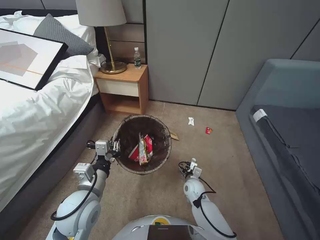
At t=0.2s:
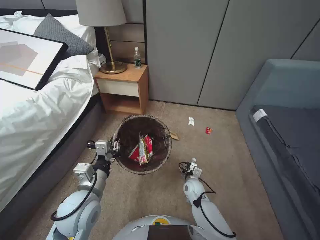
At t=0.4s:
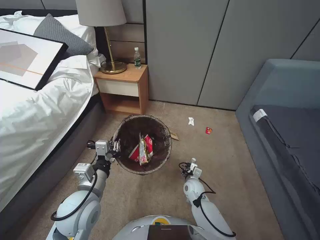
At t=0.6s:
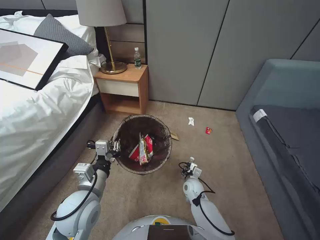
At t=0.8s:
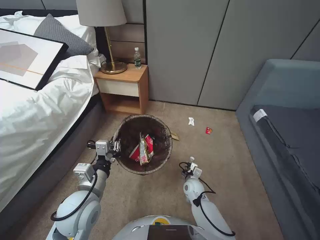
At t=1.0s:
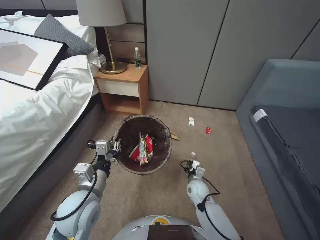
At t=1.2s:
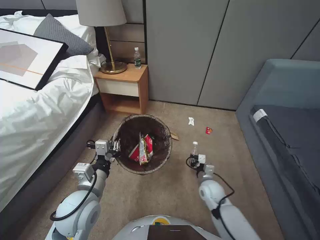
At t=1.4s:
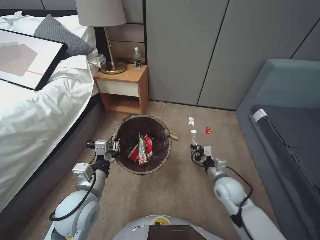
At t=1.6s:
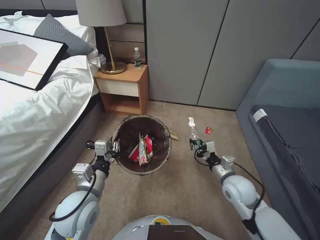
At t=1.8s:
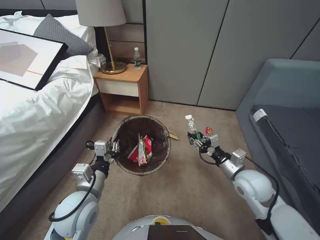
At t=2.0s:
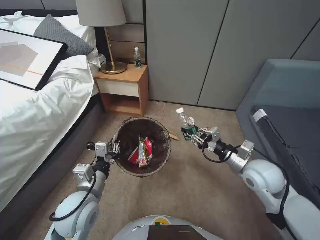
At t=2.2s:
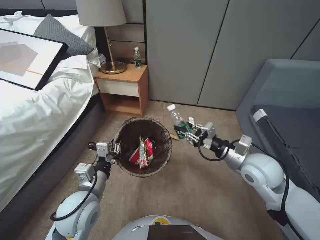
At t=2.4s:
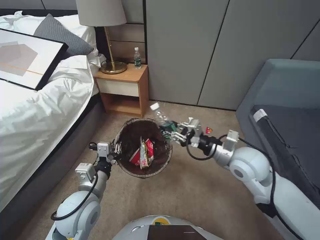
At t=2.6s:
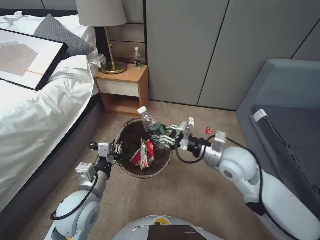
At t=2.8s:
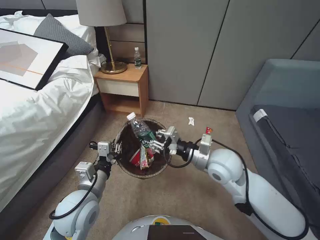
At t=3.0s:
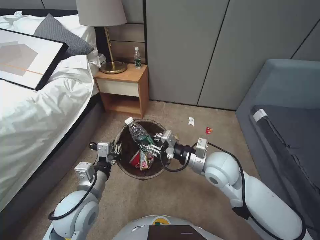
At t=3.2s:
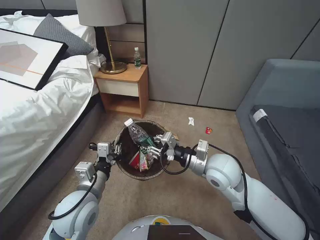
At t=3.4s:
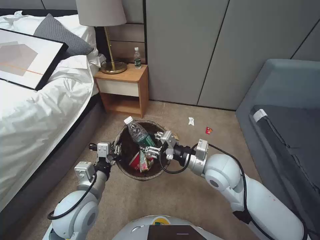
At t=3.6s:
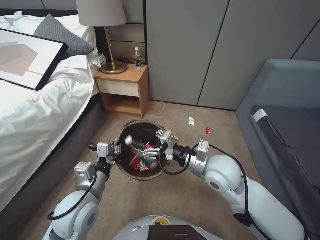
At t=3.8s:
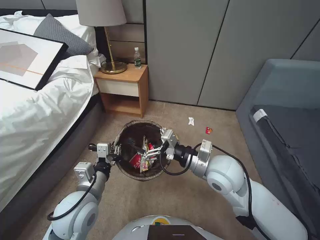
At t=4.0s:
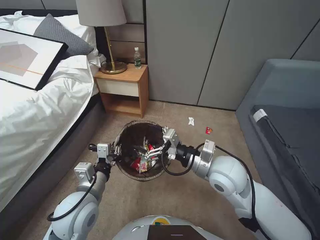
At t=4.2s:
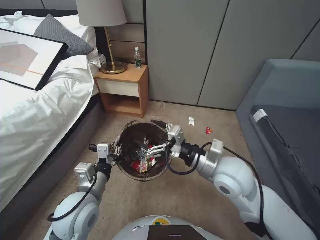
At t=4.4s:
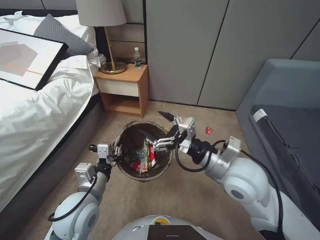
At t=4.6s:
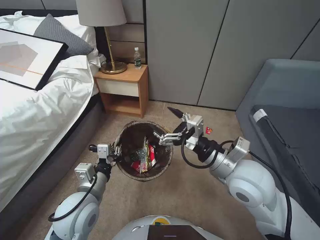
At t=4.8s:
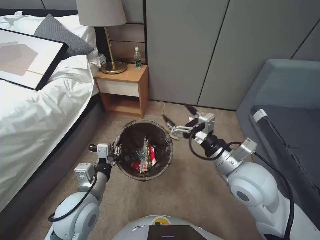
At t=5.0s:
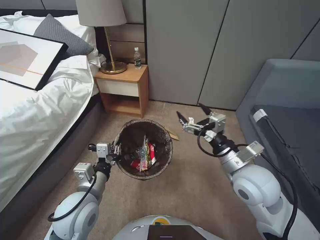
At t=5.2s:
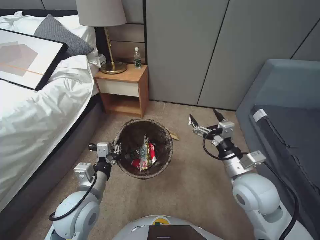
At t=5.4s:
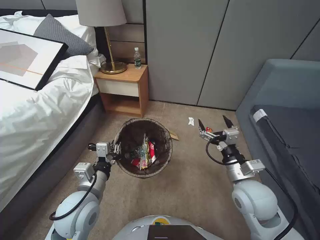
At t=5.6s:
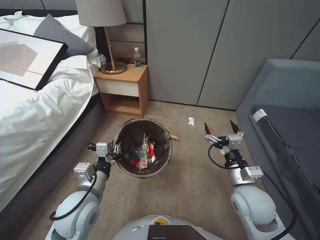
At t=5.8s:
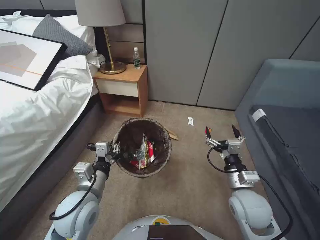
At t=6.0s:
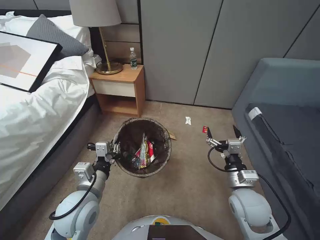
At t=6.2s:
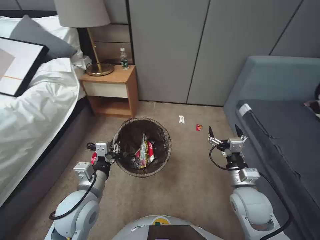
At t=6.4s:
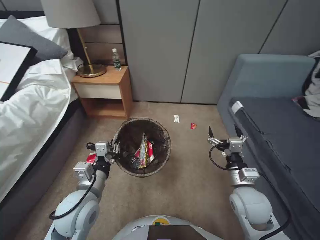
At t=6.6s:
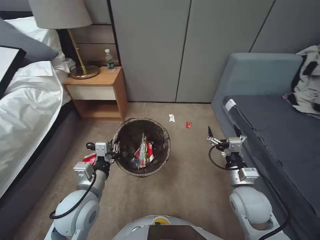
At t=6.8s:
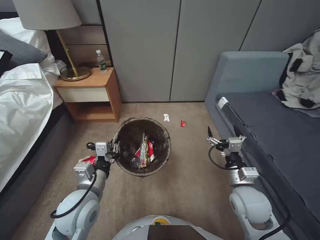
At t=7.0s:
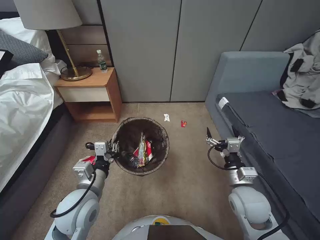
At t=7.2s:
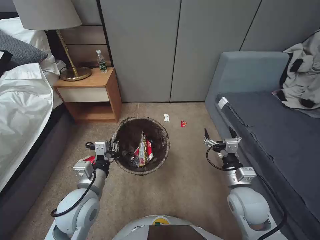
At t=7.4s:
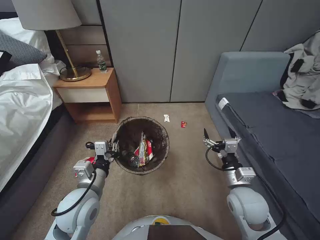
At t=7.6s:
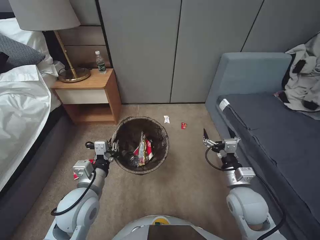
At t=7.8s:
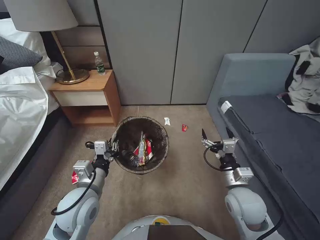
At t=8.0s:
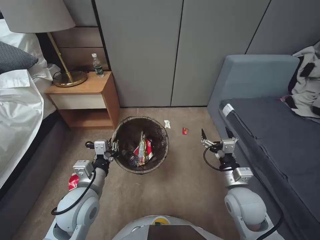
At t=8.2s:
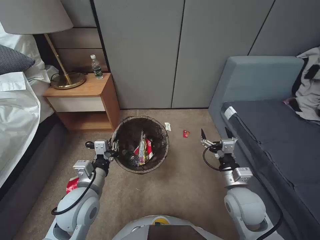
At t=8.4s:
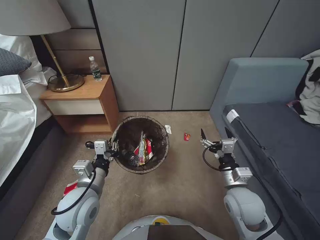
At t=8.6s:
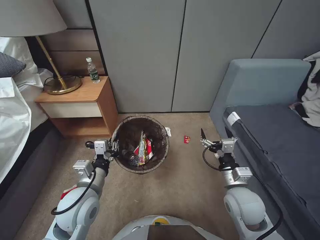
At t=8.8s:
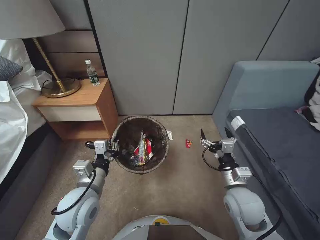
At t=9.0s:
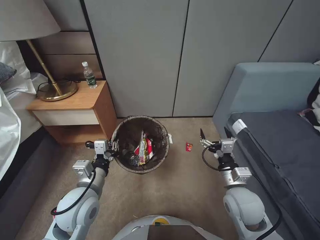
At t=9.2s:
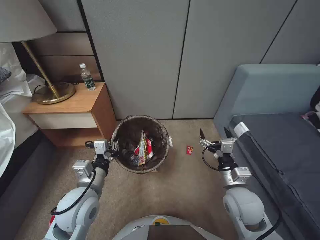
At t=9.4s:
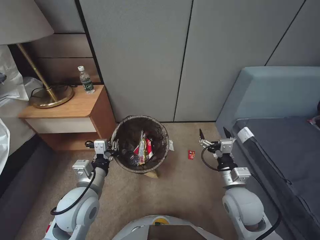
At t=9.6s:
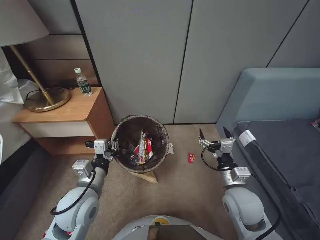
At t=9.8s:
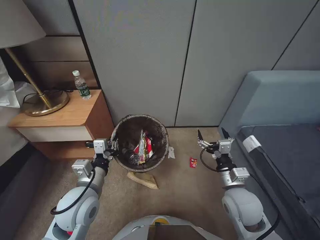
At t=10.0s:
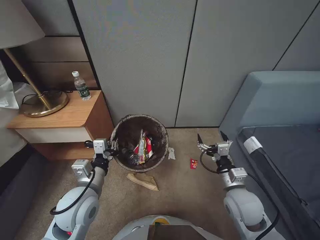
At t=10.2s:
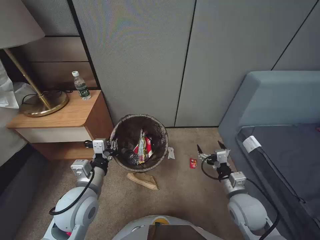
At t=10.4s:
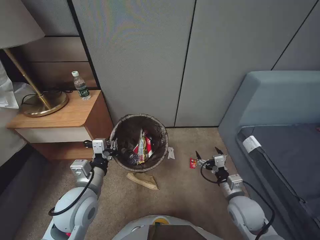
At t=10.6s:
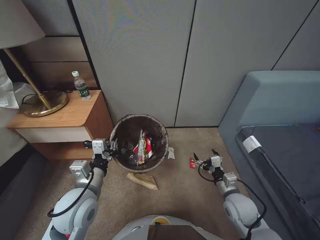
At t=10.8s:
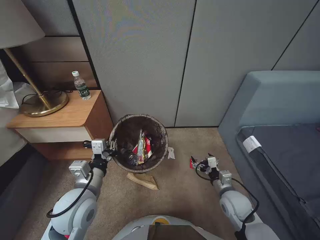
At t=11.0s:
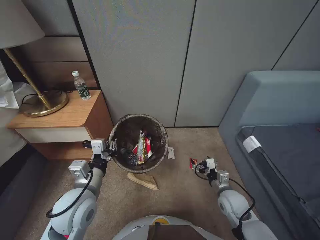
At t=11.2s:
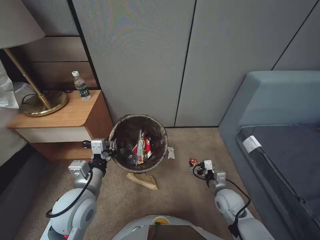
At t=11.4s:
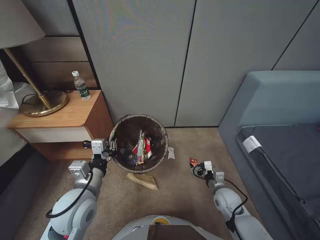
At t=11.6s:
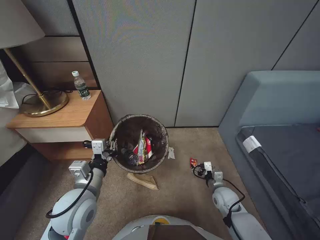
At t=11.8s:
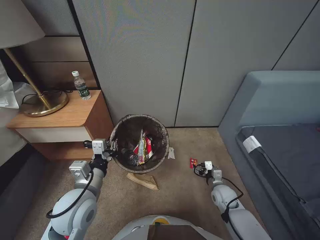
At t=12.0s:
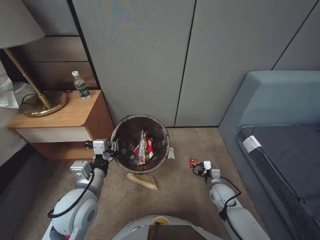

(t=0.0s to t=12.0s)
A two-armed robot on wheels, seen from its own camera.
Task of the whole recording: Pick up the trash bin, then pick up the garbage from the floor and place it into the trash bin.
t=0.0s - t=1.6s: The right gripper is displaced upward and to the right by approximately 20 cm, and closes.
t=1.6s - t=3.0s: The right gripper shifts about 15 cm upward and to the left.
t=3.0s - t=4.4s: The right gripper heads upward, covering roughly 5 cm, and opens.
t=4.4s - t=6.0s: The right gripper heads downward and to the right, covering roughly 15 cm.
t=9.0s - t=10.4s: The right gripper heads downward, covering roughly 5 cm.
t=10.4s - t=12.0s: The right gripper shifts roughly 15 cm downward and forward.

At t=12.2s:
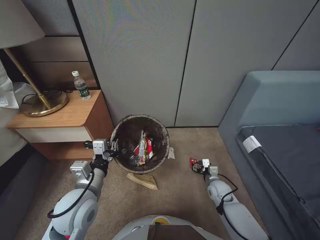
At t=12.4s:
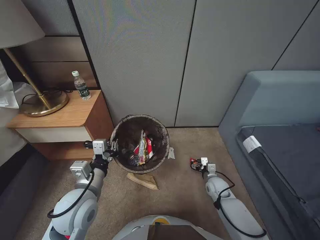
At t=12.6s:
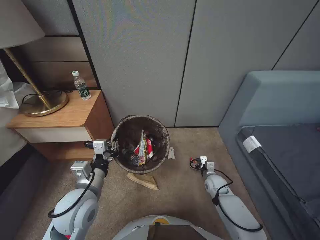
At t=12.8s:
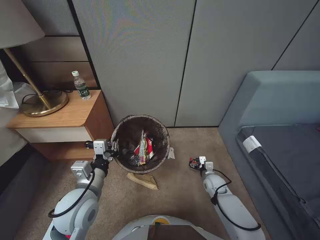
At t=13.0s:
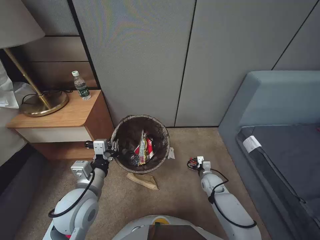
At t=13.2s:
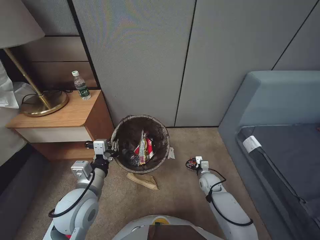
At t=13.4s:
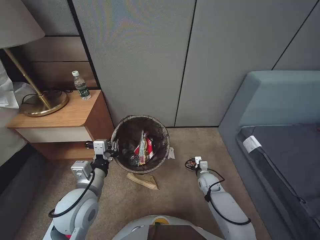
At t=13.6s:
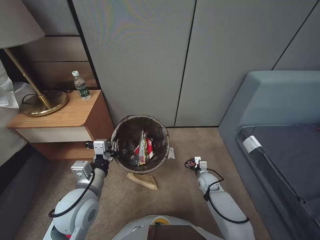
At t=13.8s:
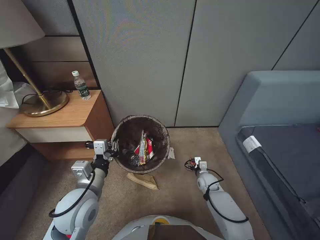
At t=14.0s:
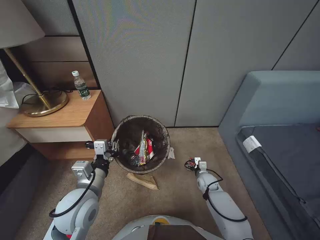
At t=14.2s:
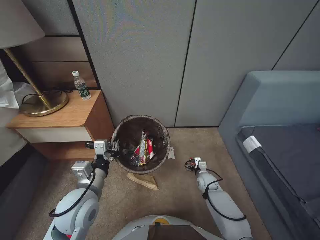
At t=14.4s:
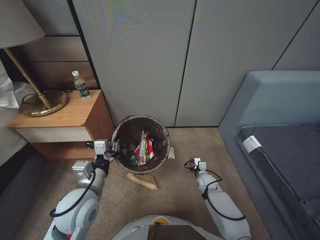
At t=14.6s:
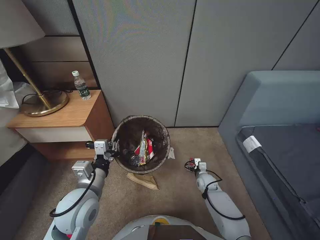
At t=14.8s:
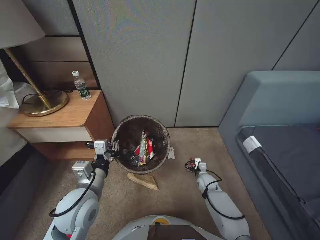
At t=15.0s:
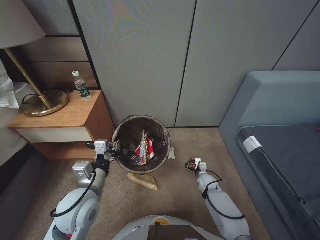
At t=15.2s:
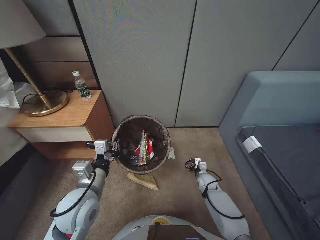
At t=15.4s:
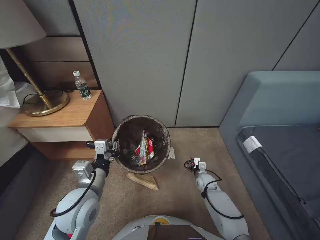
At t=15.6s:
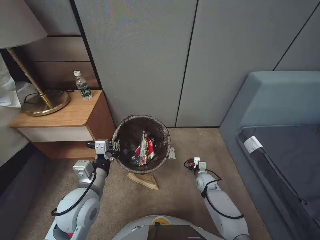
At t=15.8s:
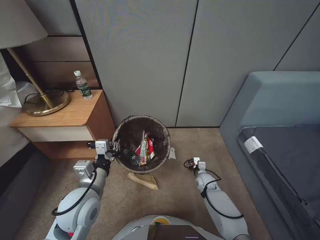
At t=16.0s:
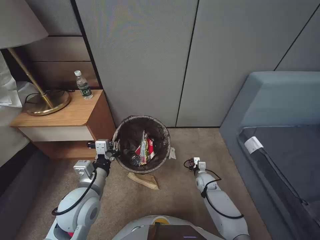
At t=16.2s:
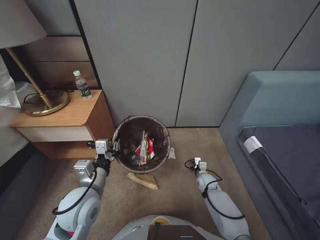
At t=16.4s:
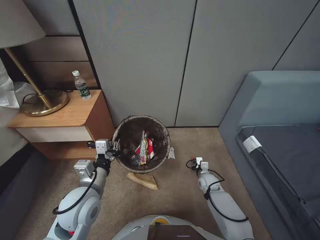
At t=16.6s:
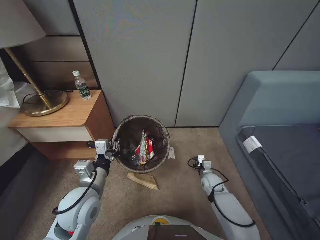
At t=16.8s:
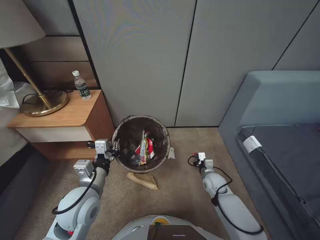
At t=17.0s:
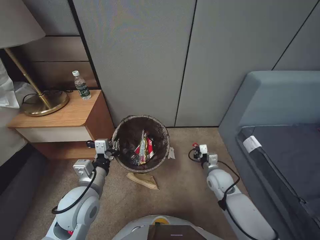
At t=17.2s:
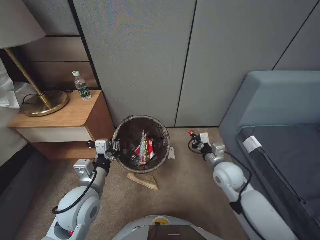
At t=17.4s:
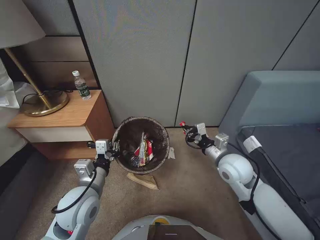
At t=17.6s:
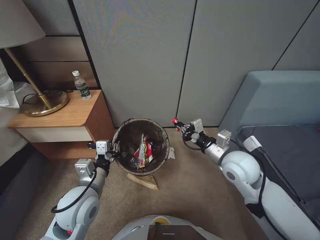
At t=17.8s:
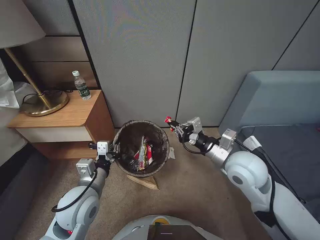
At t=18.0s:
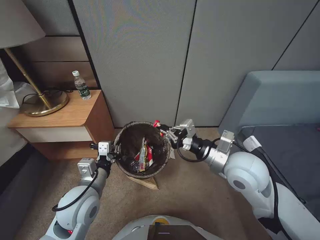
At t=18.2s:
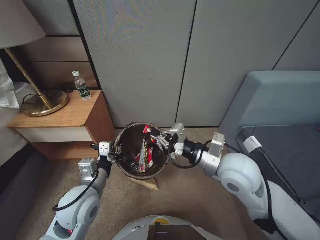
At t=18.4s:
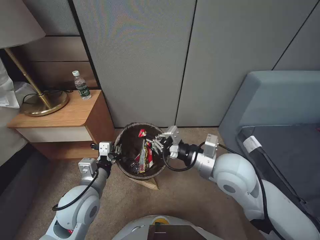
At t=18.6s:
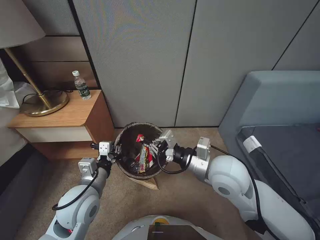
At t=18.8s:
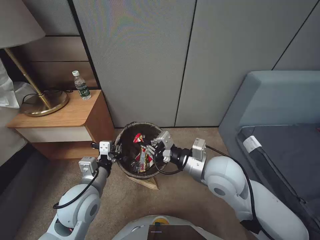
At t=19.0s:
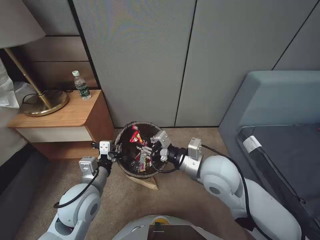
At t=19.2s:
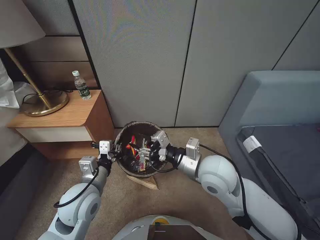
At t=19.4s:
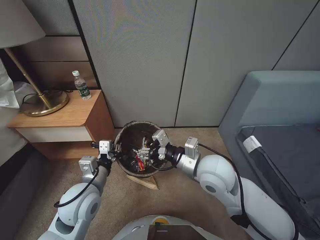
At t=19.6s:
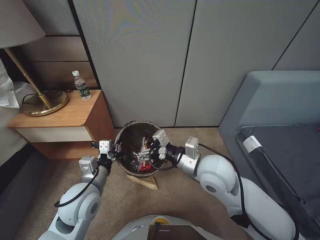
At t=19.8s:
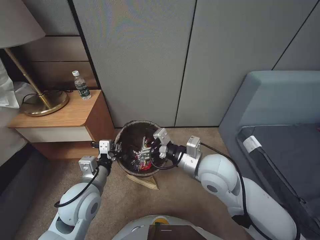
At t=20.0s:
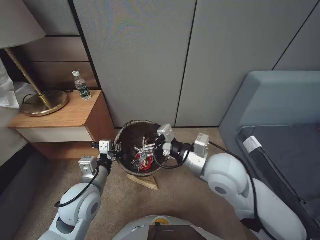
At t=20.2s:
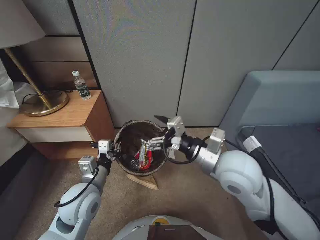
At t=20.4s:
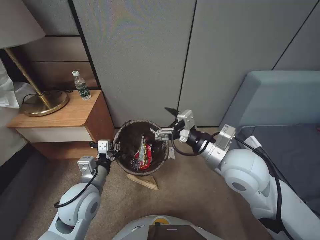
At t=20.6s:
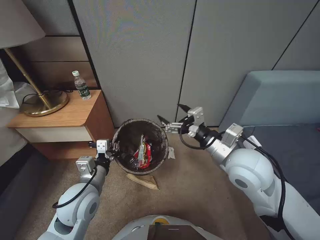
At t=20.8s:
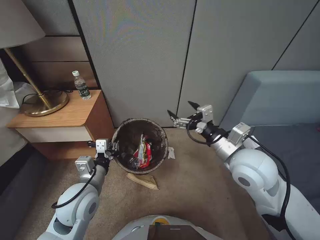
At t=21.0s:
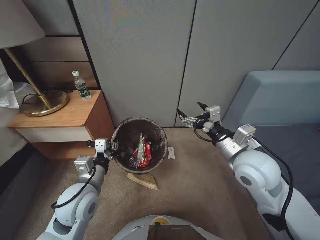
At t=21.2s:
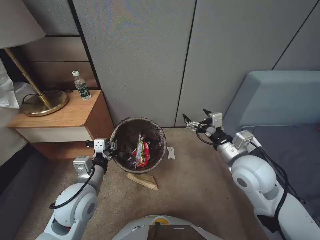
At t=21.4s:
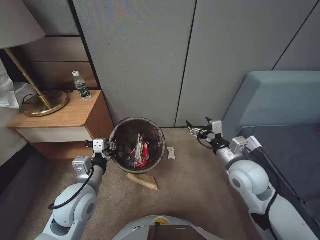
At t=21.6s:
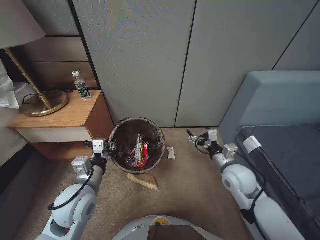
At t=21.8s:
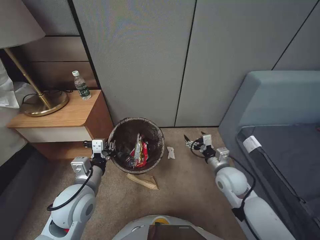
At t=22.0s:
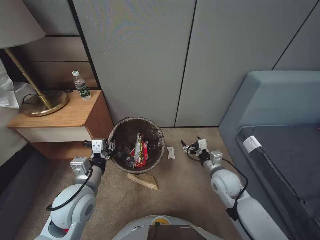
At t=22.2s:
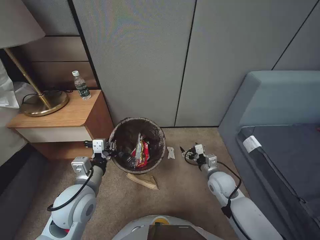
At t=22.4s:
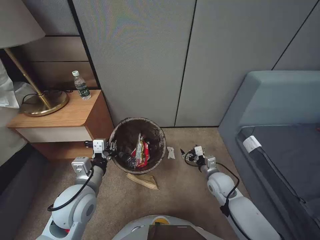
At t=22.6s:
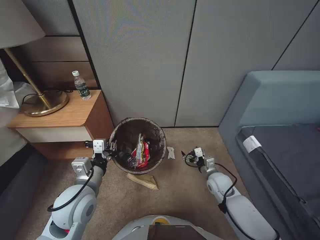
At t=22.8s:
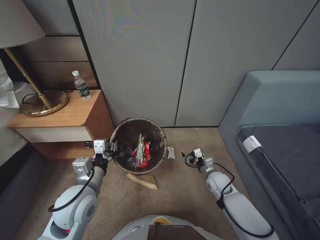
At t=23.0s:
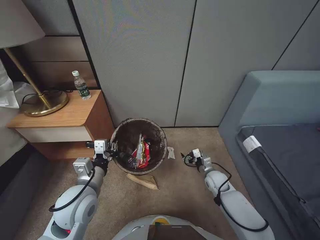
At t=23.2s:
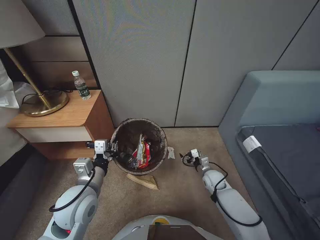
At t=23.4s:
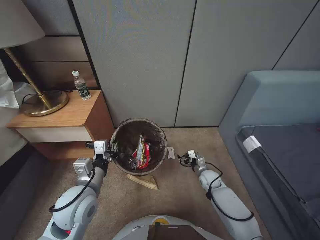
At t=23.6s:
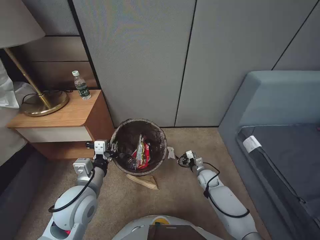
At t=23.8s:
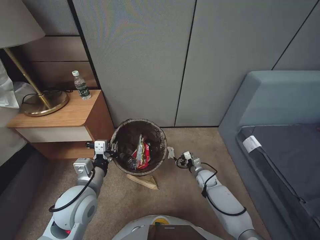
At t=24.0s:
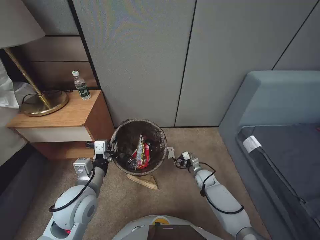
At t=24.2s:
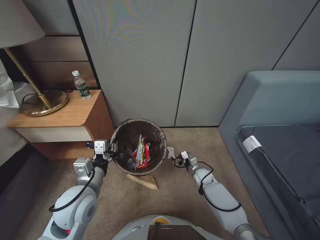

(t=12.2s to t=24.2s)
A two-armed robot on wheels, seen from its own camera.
Task of the whole recording: Pick up the trash bin, then pick up the garbage from the floor and place it into the trash bin.
t=12.2s - t=13.8s: The right gripper heads forward, covering about 5 cm.
t=13.8s - t=15.2s: The grippers stay close to where they were, moving slightly.
t=15.2s - t=16.6s: The right gripper closes.
t=16.6s - t=18.2s: The right gripper moves upward, approximately 35 cm.
t=18.2s - t=19.8s: The right gripper heads to the left, covering roughly 5 cm, and opens its fingers.
t=19.8s - t=21.2s: The right gripper travels to the right by some 10 cm.
t=21.2s - t=22.6s: The right gripper heads downward, covering some 25 cm.
t=22.6s - t=24.2s: The right gripper is displaced downward and forward by some 15 cm.
